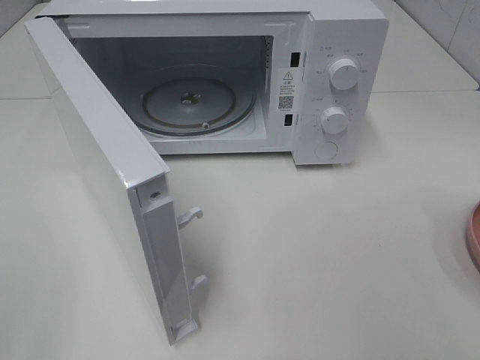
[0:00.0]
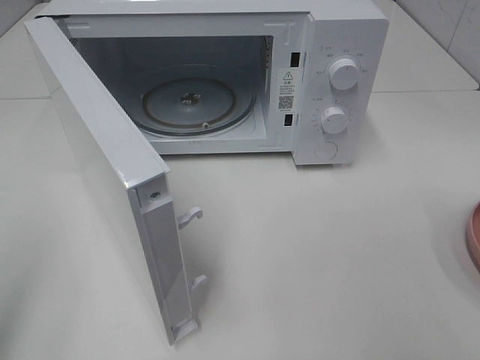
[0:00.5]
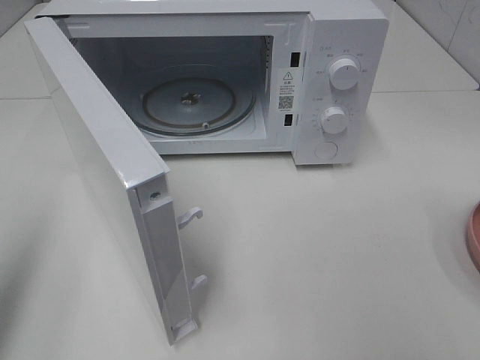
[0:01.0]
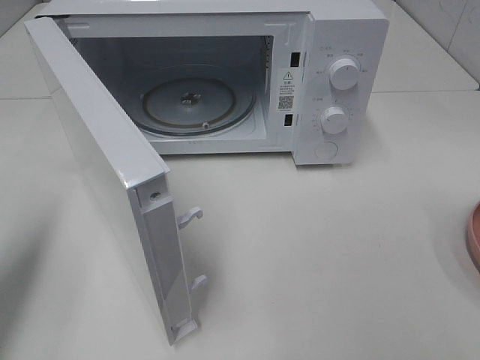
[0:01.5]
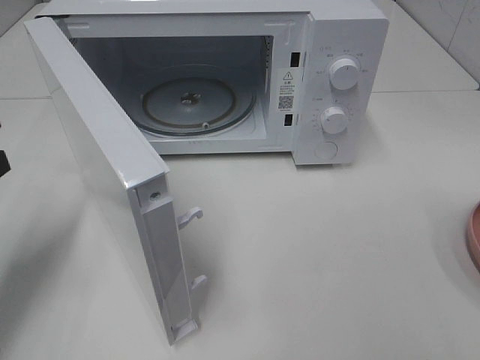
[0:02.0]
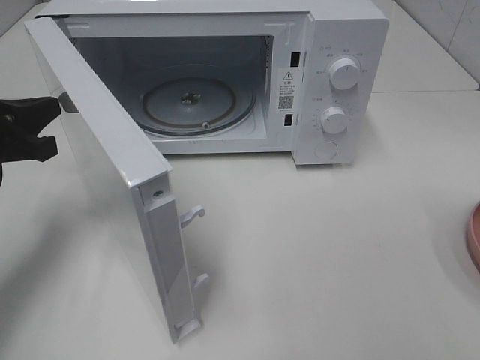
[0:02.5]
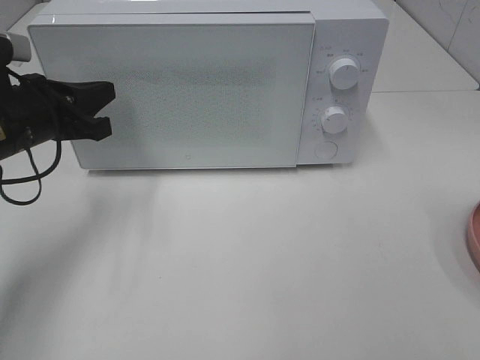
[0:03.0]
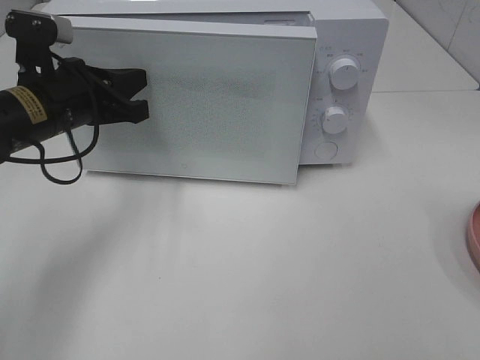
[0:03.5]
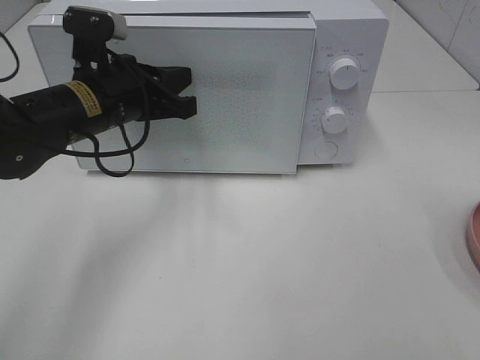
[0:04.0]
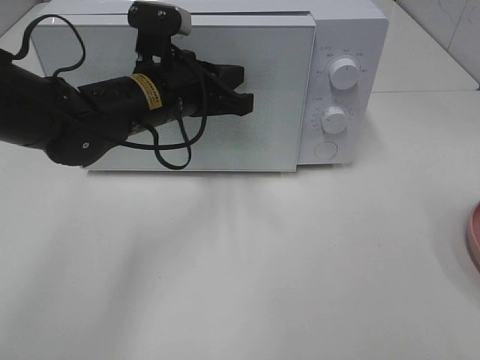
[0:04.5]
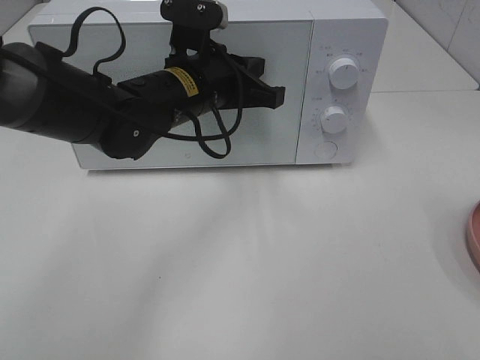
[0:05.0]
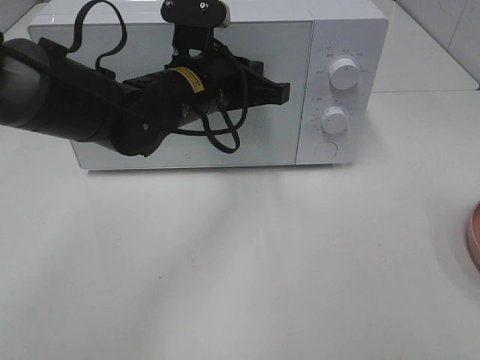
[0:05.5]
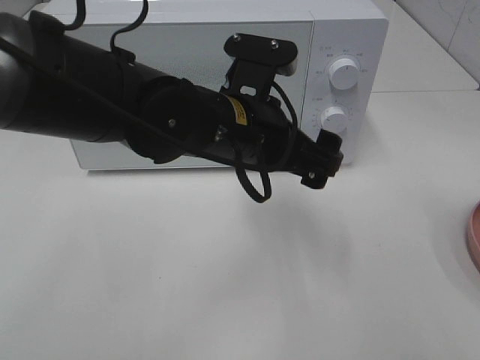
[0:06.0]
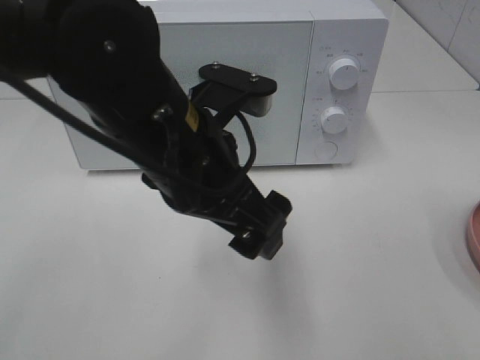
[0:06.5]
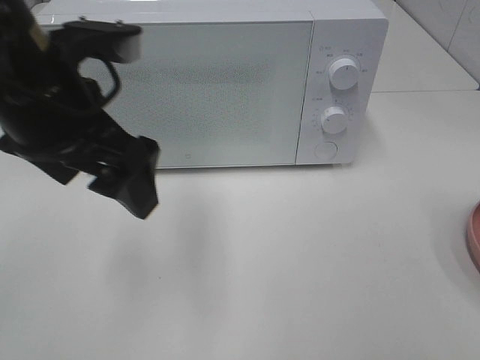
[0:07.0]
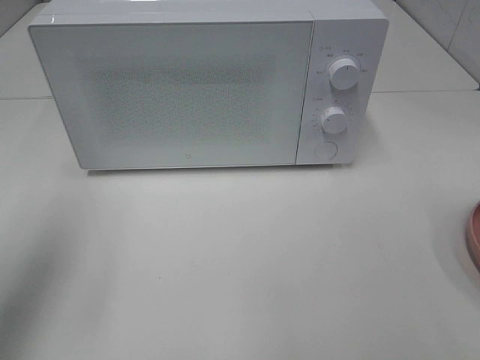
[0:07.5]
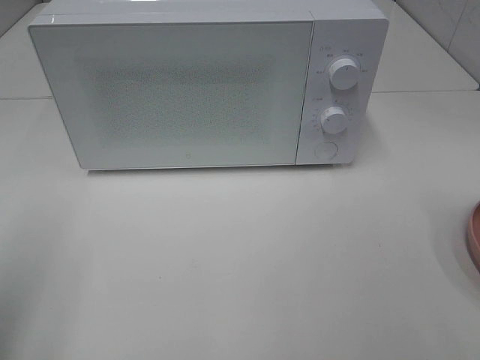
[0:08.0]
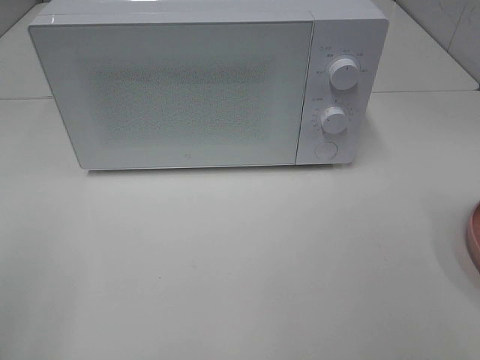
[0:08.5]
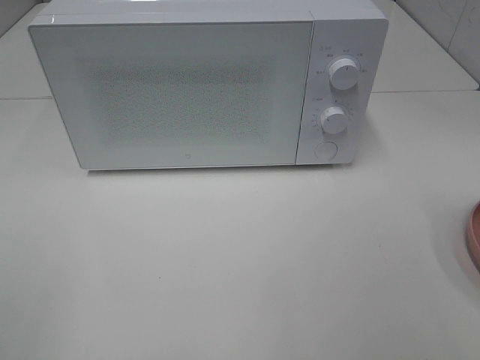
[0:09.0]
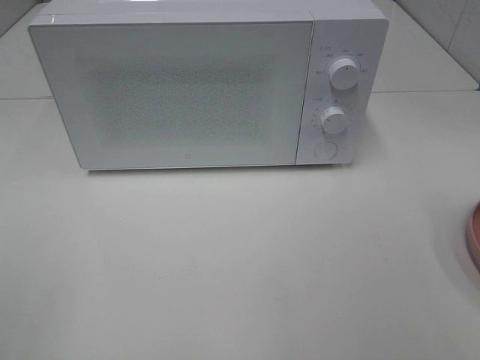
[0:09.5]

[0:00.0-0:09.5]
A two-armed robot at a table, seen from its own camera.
Task of the whole recording: Heat the burger.
Step, 0:00.0 to 0:05.0: Left hand: close the microwave door.
0:00.0 to 0:02.0: The left gripper travels forward and downward by about 25 cm, and closes up.
0:02.0 to 0:04.0: The left gripper shifts roughly 20 cm to the right and forward.
0:04.0 to 0:05.5: The left gripper travels to the right by about 10 cm.
0:05.5 to 0:07.5: The left gripper moves to the left, backward and upward, roughly 30 cm, and opens its fingers.
0:07.5 to 0:09.5: The left gripper travels backward by some 20 cm.

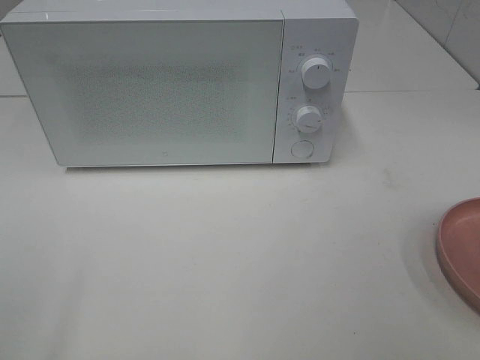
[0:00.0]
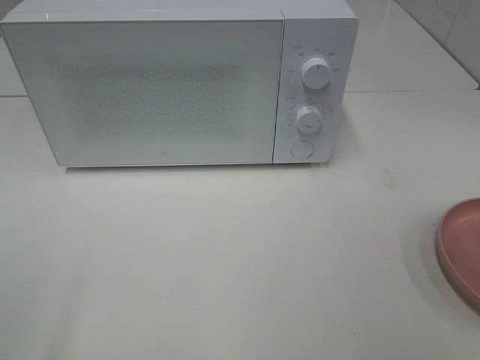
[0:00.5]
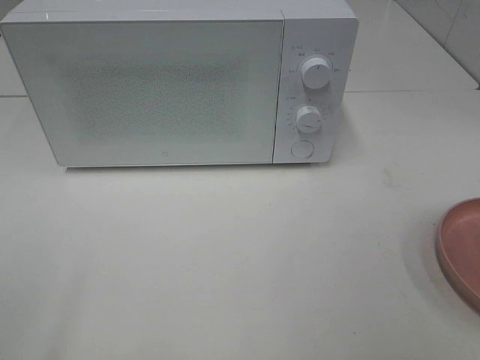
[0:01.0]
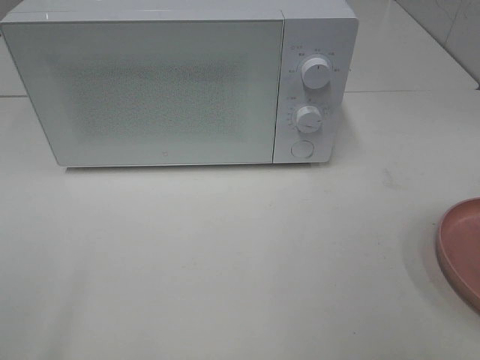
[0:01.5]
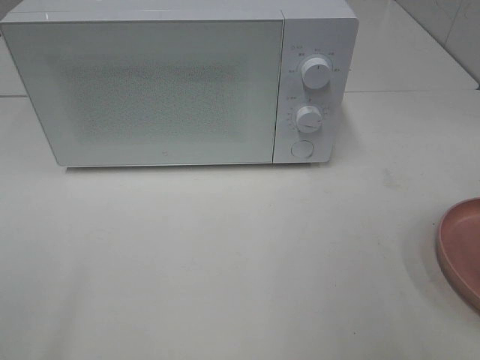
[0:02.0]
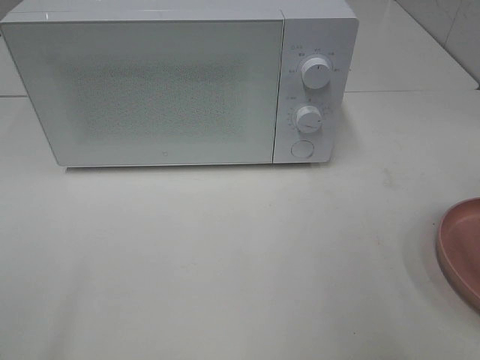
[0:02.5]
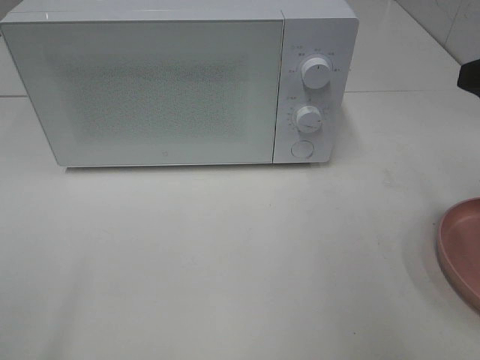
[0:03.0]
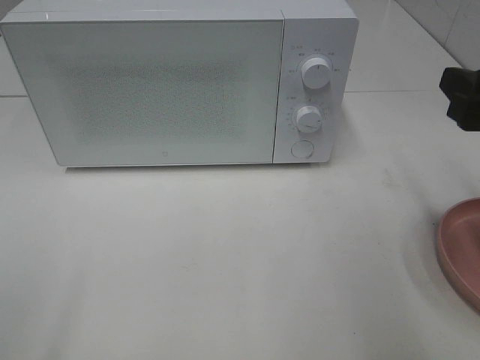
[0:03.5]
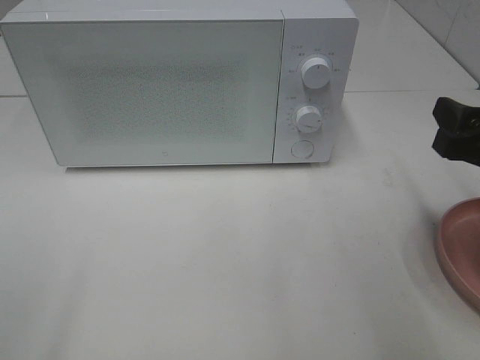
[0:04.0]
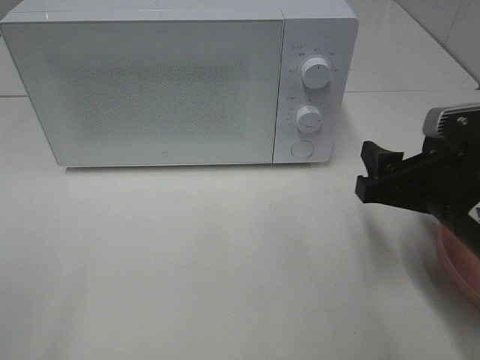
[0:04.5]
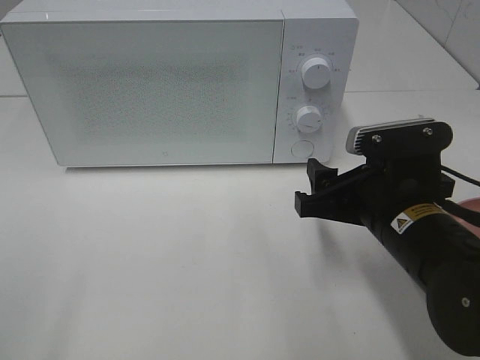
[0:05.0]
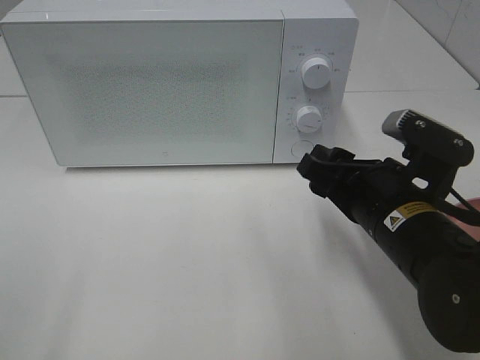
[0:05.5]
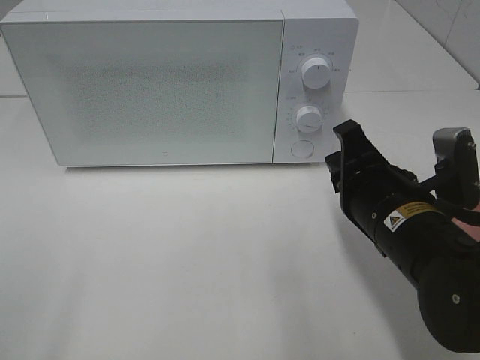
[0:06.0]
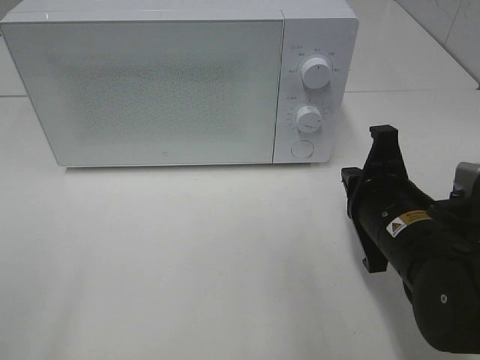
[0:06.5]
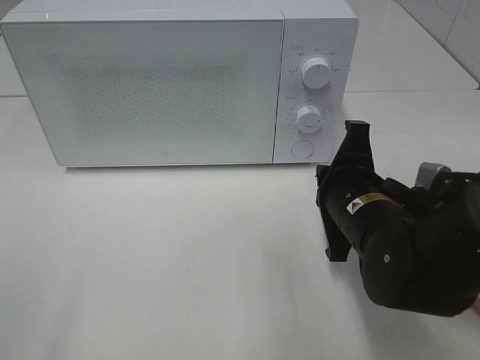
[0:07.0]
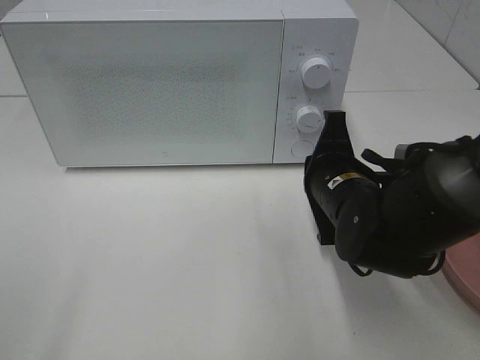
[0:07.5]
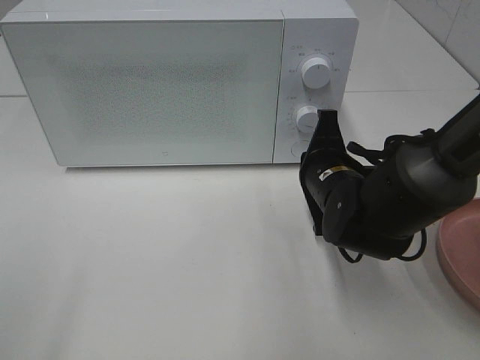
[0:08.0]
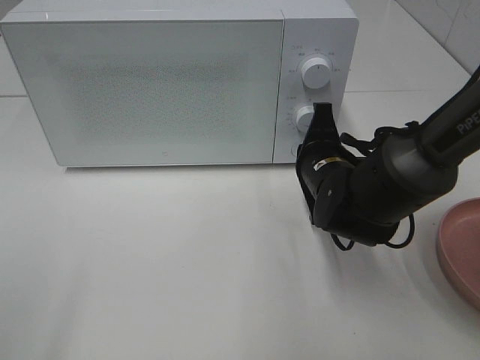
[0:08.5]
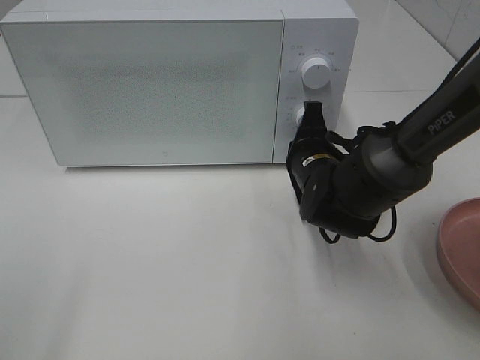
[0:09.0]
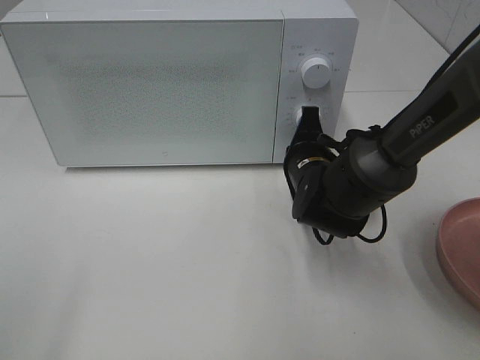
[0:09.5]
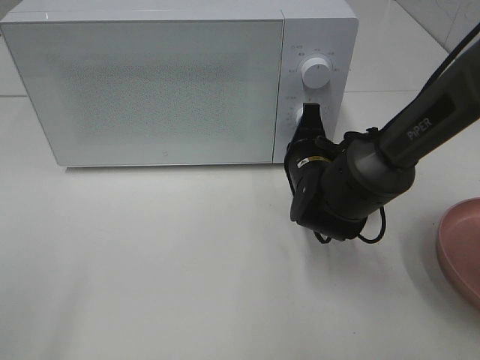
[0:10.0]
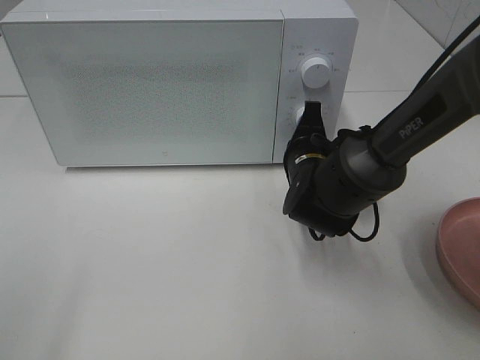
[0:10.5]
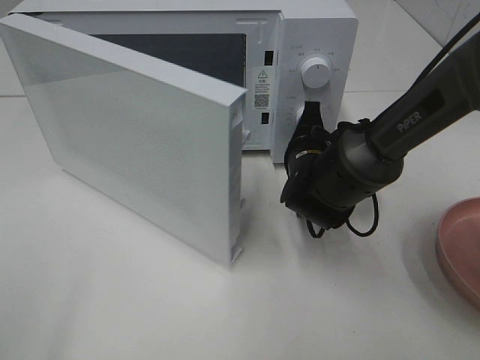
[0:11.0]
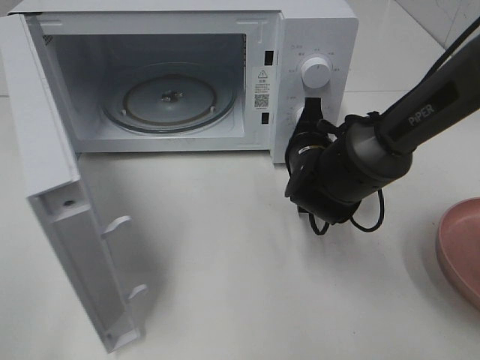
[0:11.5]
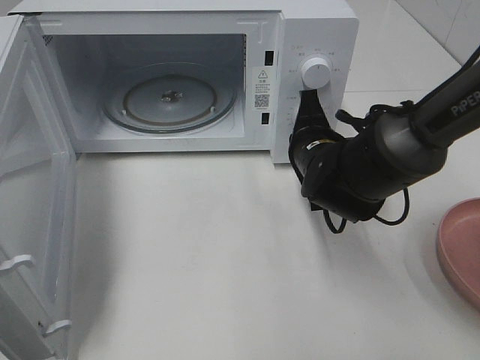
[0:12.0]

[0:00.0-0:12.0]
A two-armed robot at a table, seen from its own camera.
Task of the whole recording: Heat the burger.
0:02.0 to 0:04.0: The right gripper is displaced downward and forward by about 15 cm.
0:04.0 to 0:06.0: The right gripper shifts about 15 cm to the left and downward, and closes up.
0:06.0 to 0:08.0: The right gripper moves forward, roughly 10 cm.
0:08.0 to 0:10.0: The grippers make only small movements.

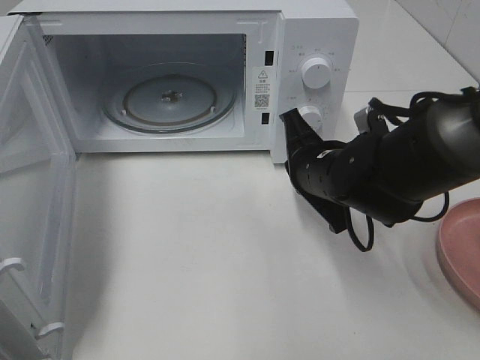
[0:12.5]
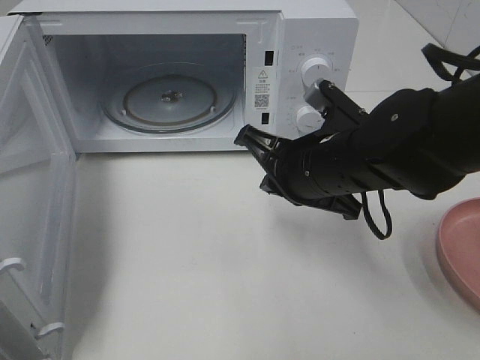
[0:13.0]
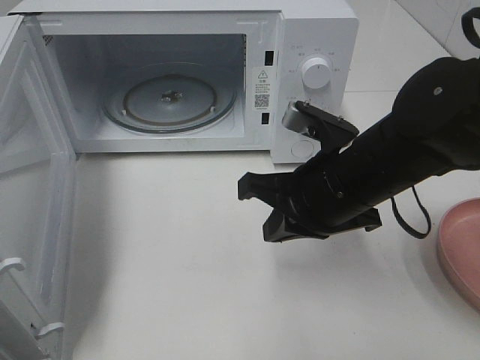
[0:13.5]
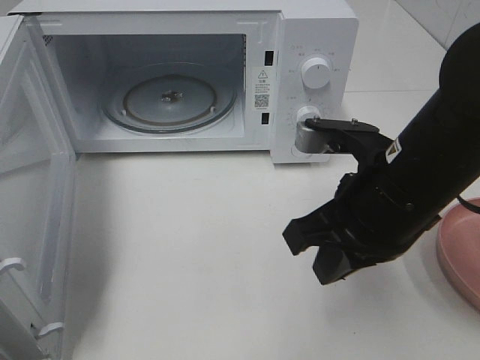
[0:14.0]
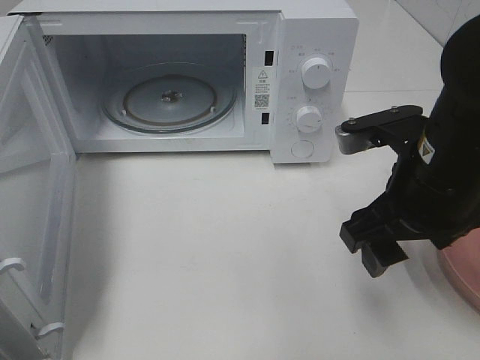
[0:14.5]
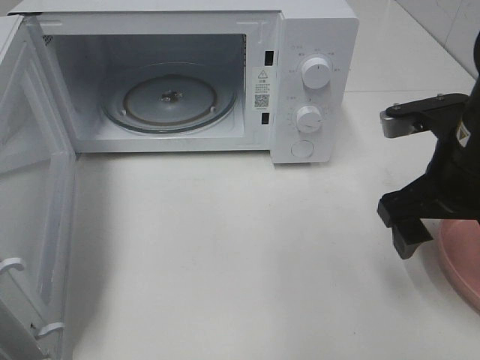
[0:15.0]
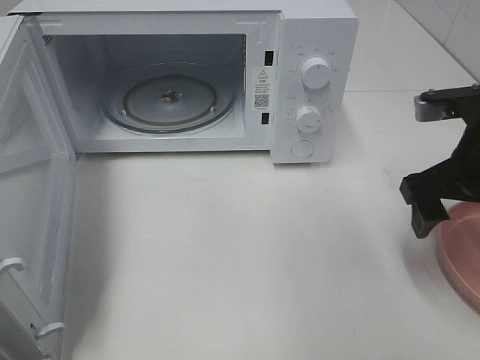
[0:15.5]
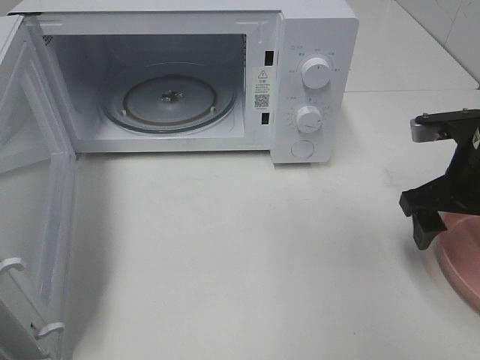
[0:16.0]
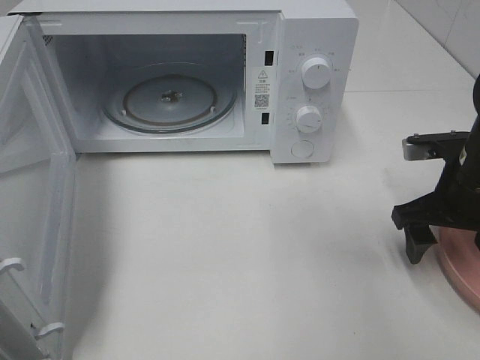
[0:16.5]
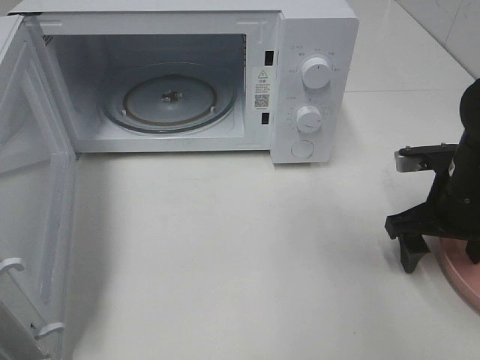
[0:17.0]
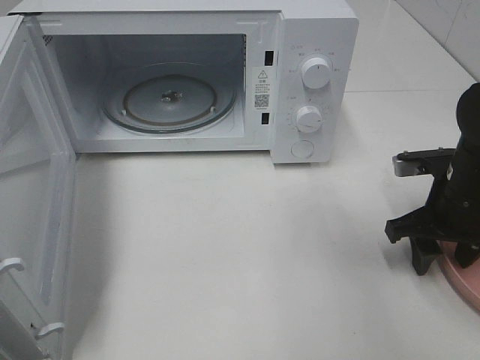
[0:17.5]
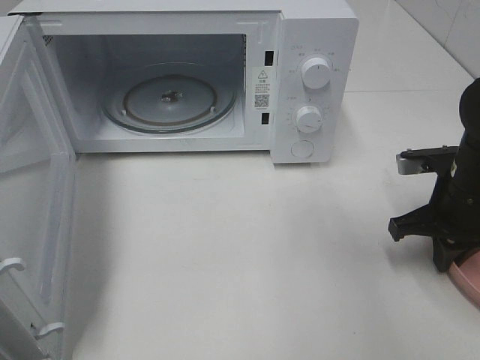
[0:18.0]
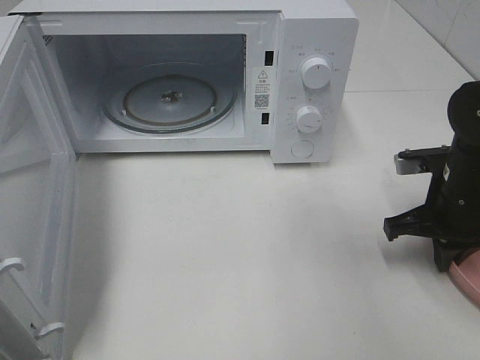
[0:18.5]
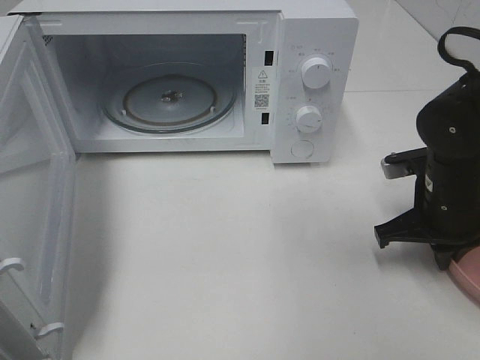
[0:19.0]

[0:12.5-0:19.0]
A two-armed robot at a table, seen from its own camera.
Task of the whole recording: Heat the burger.
Step, 0:12.5 to 0:18.0: Right hand: grab the plate with the hamburger.
0:12.5 to 0:14.5: The right gripper shifts about 10 cm upward and backward, and opens its fingers.
0:14.5 to 0:17.0: The right gripper travels to the right, downward and forward by about 15 cm.
0:17.0 to 0:19.0: The right gripper closes its fingers.
